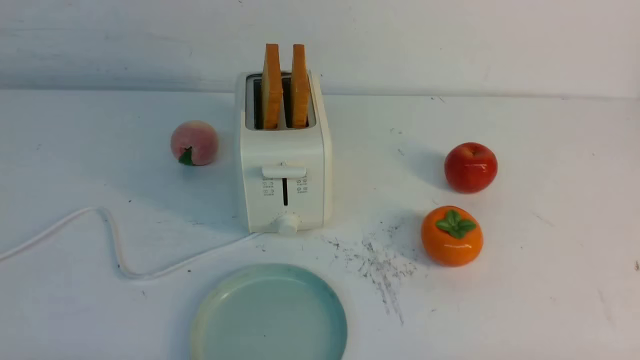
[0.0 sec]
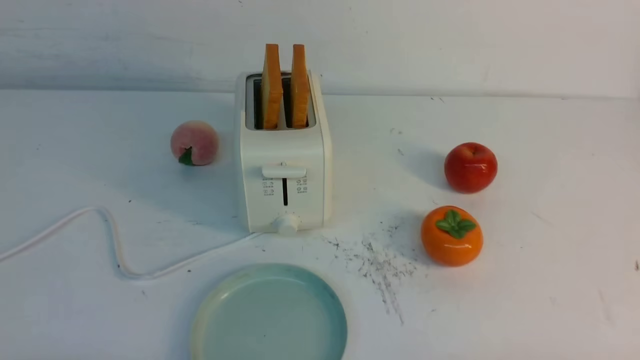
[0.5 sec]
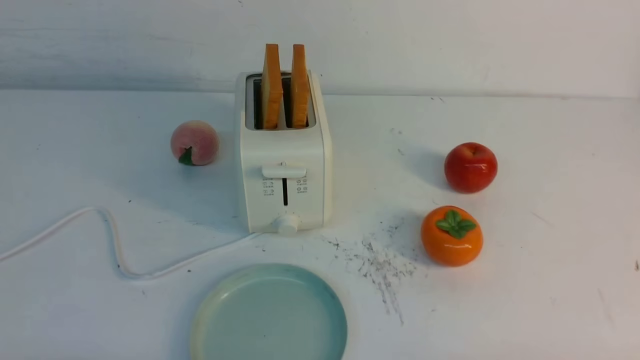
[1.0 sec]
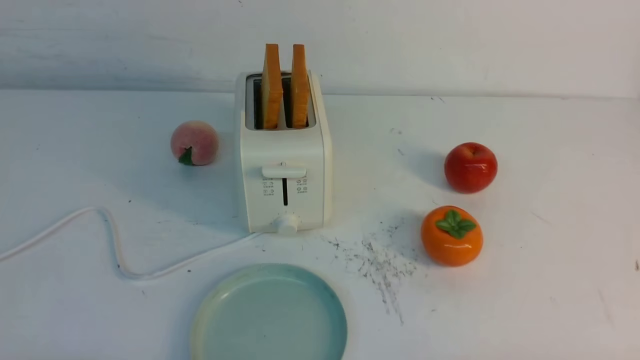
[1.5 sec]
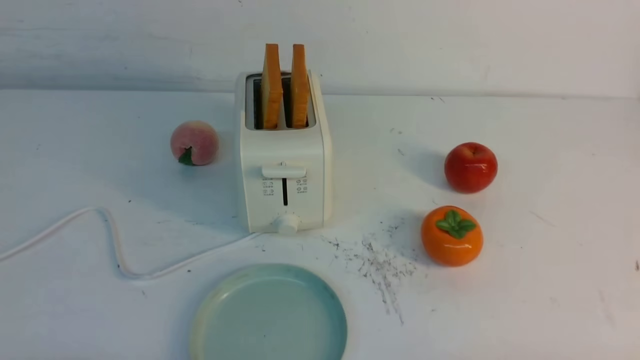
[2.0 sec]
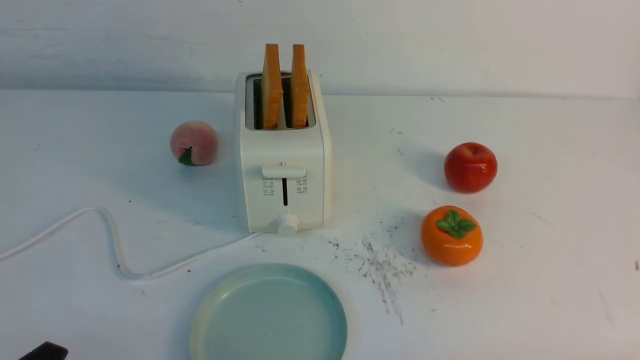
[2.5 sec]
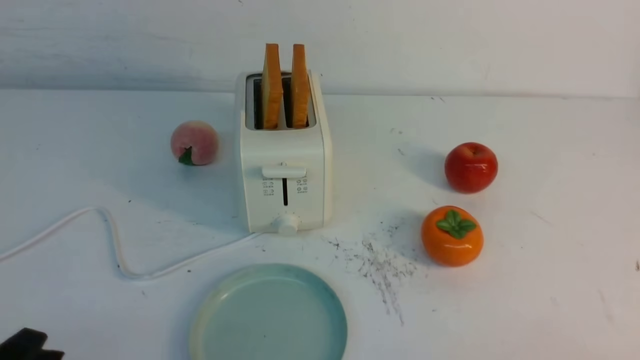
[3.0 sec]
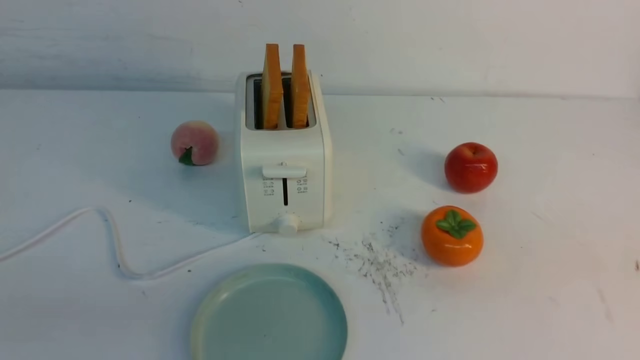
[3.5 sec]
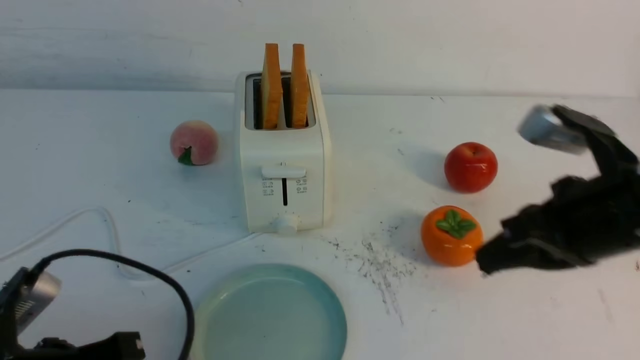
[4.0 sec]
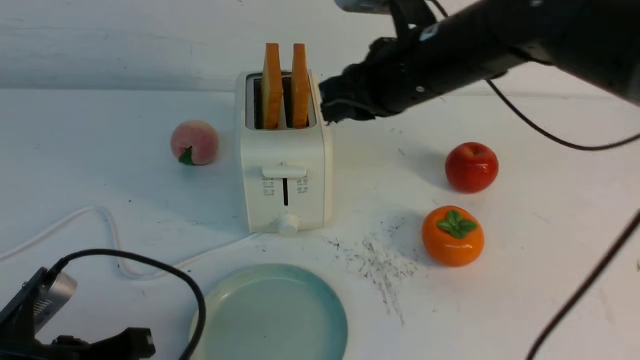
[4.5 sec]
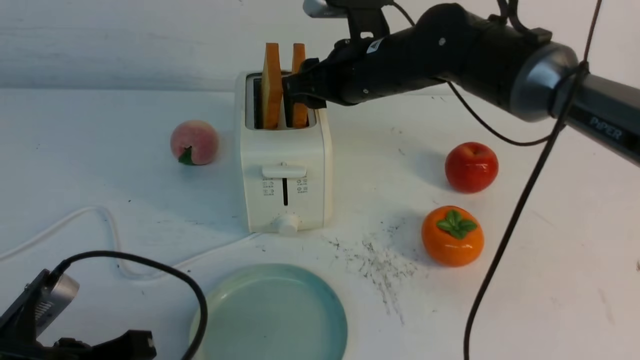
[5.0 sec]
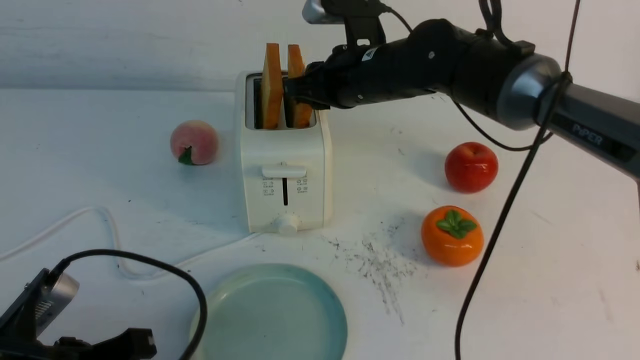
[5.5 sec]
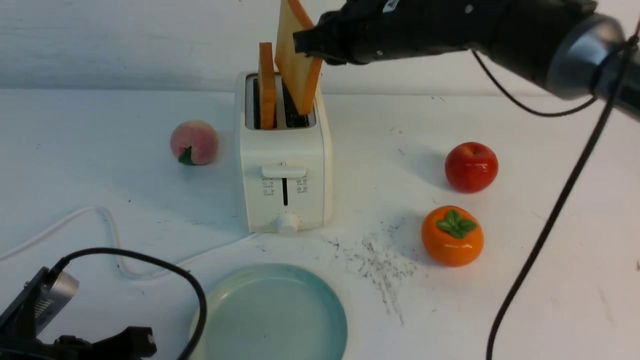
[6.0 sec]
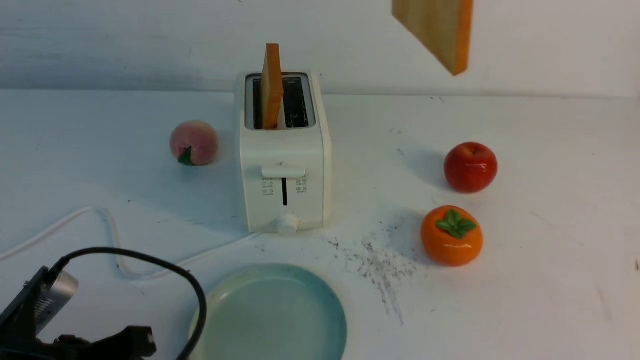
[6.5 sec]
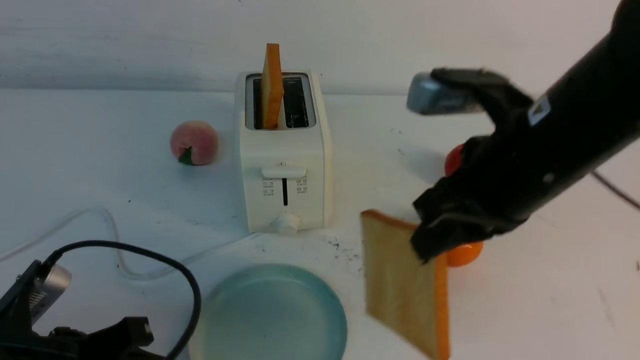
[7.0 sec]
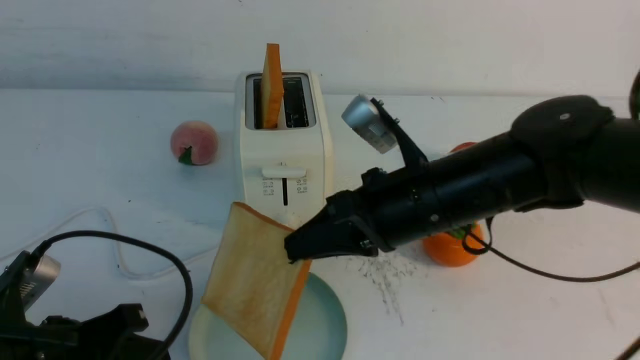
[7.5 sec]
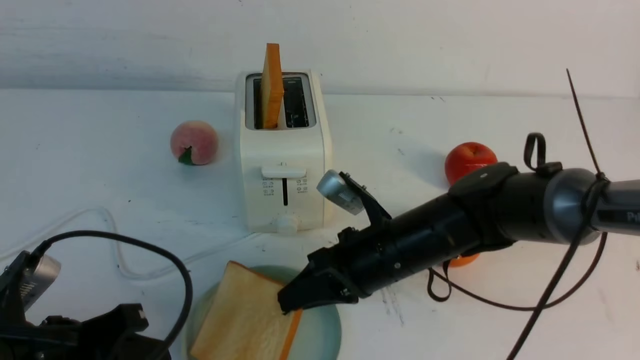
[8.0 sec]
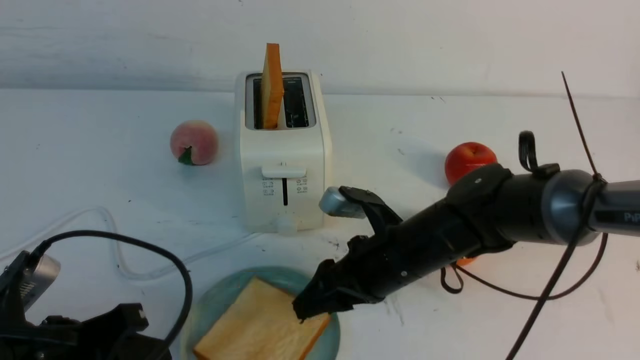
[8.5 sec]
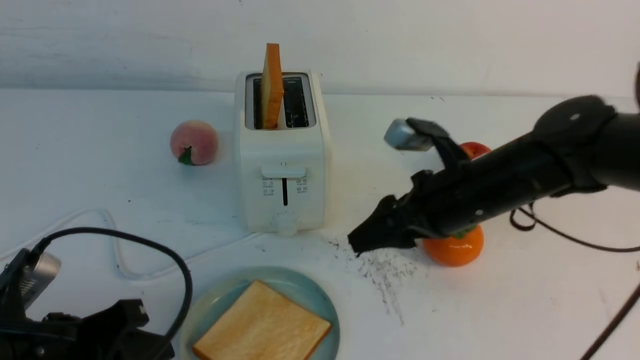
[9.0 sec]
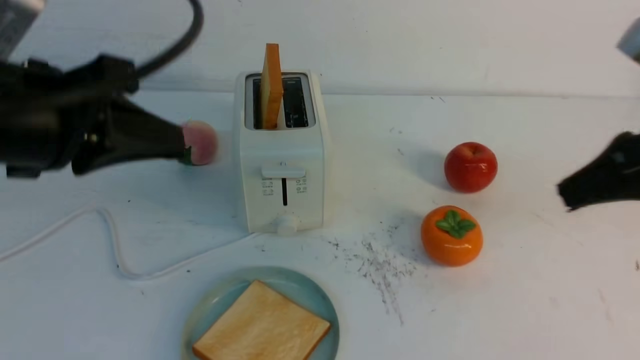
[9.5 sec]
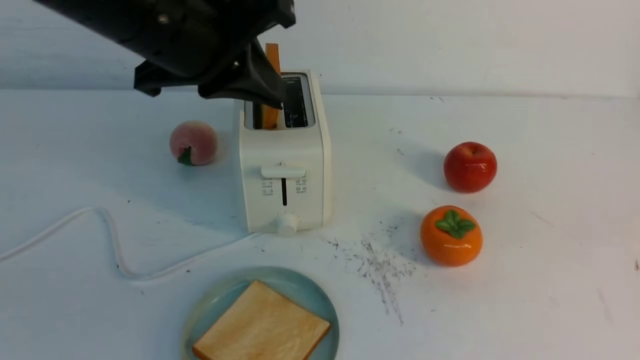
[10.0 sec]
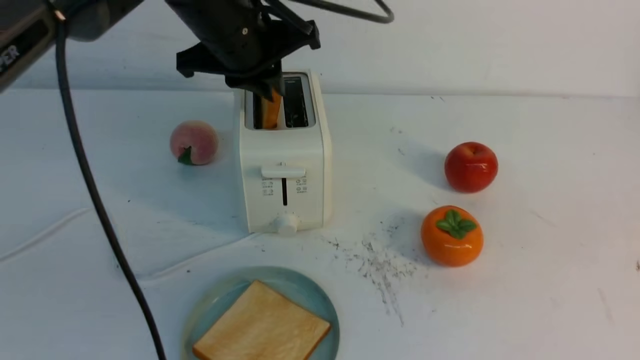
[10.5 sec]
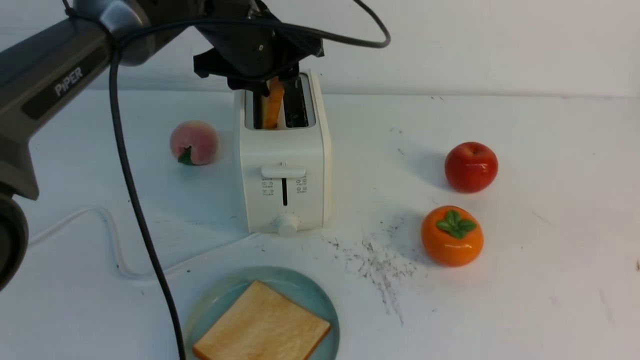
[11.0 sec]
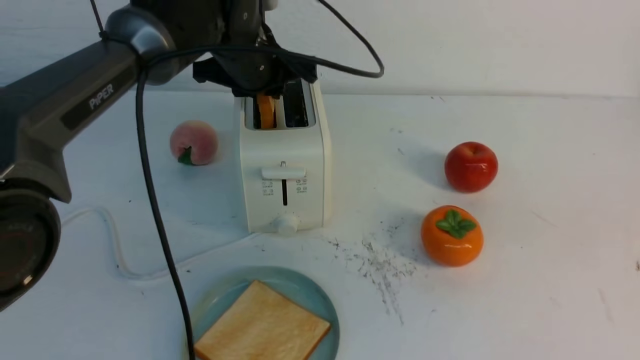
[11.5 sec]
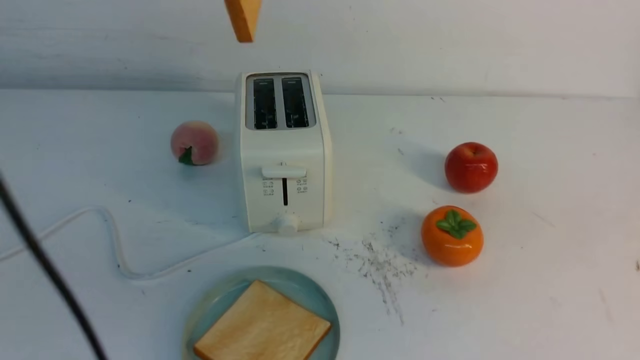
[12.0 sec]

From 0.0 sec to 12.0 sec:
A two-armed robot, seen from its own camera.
Task of the whole recording: take toasted bread from bread machine on white table place on plate.
Step, from 0.0 sec to 5.5 sec: use the right arm to take out a slice of bread.
Step, from 6.5 sec to 8.5 sec: use the right arm to put a slice of bread into the plate.
Step, from 9.0 sec to 11.5 sec: use the left arm to take out a slice of bread.
From 2.0 sec to 4.0 sec: The left gripper moves forward and upward, some 10 cm, and closes up. The right gripper moves forward, upward and to the left, some 25 cm, and closes its fingers.
From 4.0 sec to 6.0 sec: The right gripper travels forward and to the left by approximately 20 cm, and opens and closes again.
From 6.0 sec to 8.0 sec: The right gripper shifts roughly 20 cm downward and backward.
From 8.0 sec to 10.0 sec: The left gripper shifts some 25 cm upward, forward and to the right. The right gripper shifts roughly 40 cm upward, to the right and backward, and opens, then closes once more.
From 10.0 sec to 12.0 sec: The right gripper shifts by about 5 cm; the left gripper is displaced upward by some 5 cm, and opens and closes again.

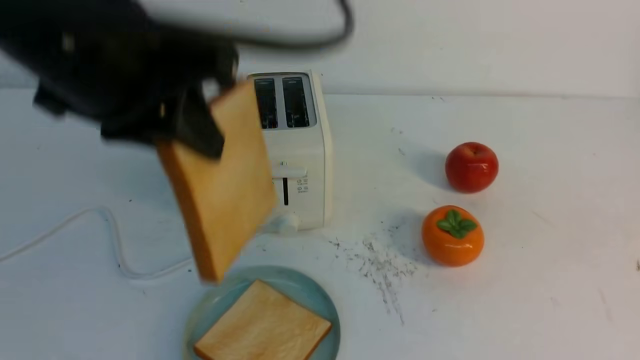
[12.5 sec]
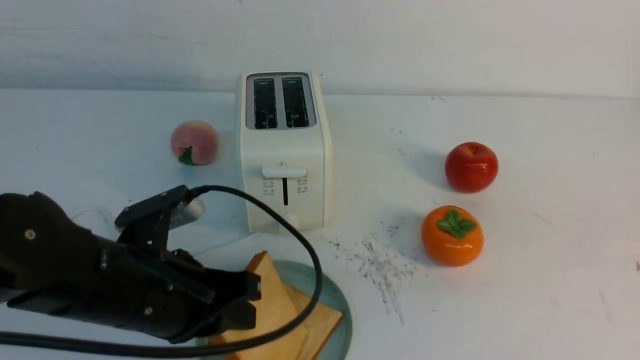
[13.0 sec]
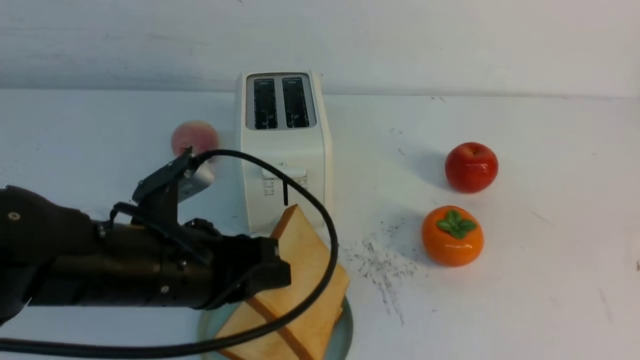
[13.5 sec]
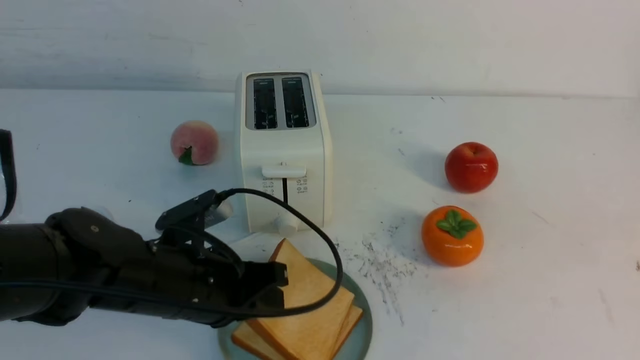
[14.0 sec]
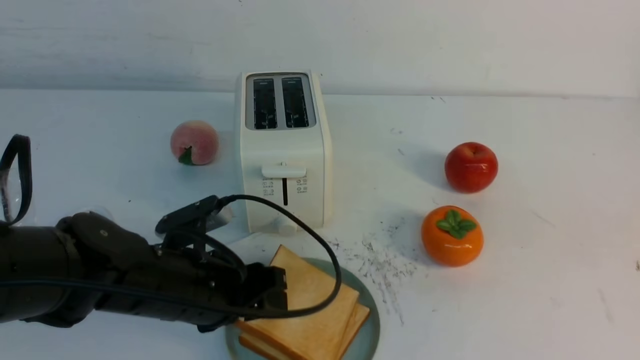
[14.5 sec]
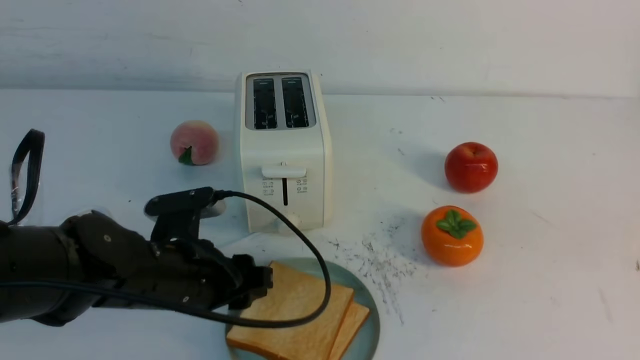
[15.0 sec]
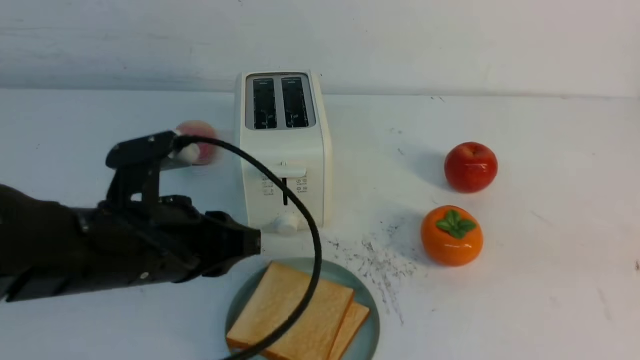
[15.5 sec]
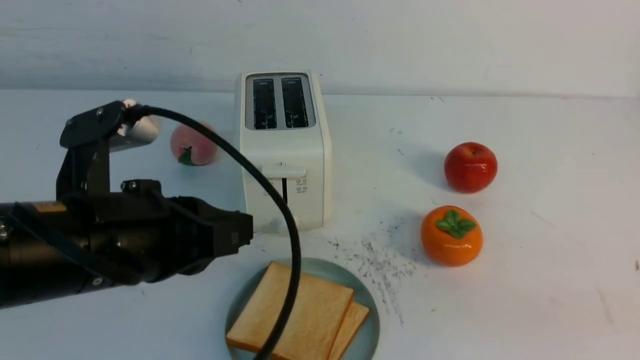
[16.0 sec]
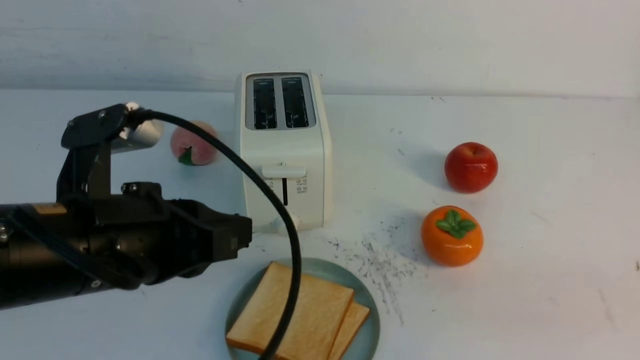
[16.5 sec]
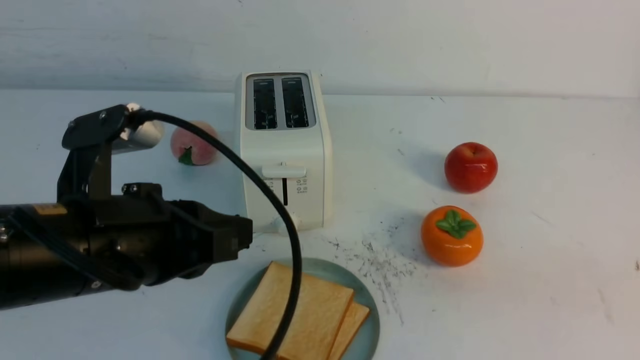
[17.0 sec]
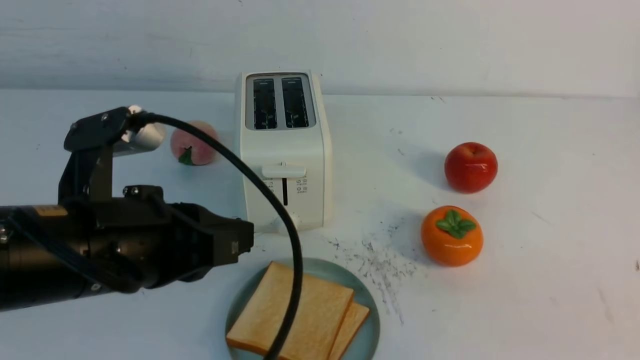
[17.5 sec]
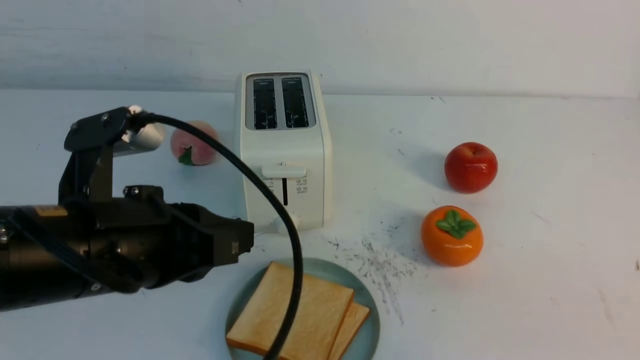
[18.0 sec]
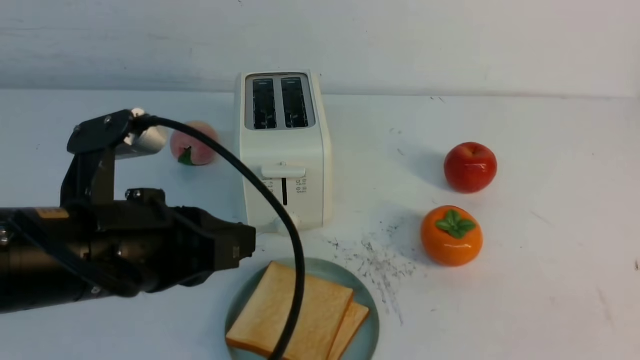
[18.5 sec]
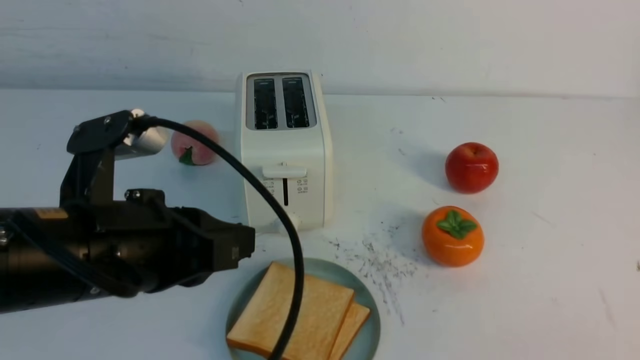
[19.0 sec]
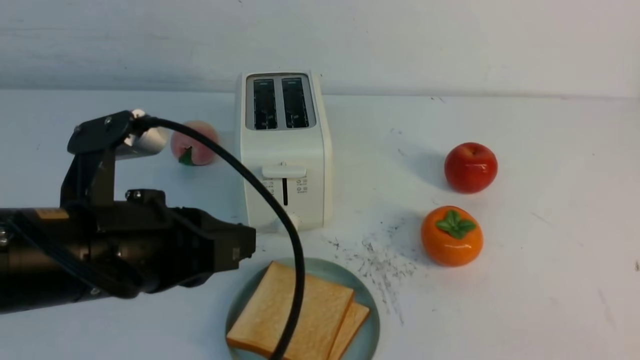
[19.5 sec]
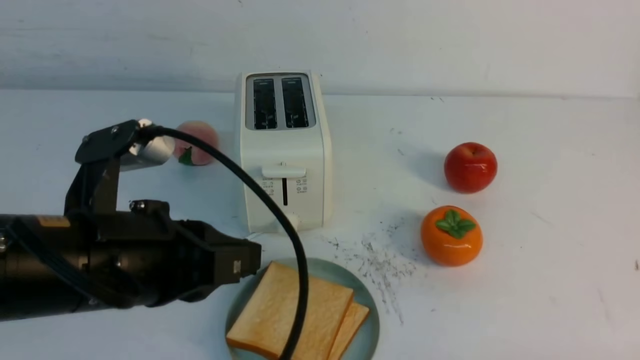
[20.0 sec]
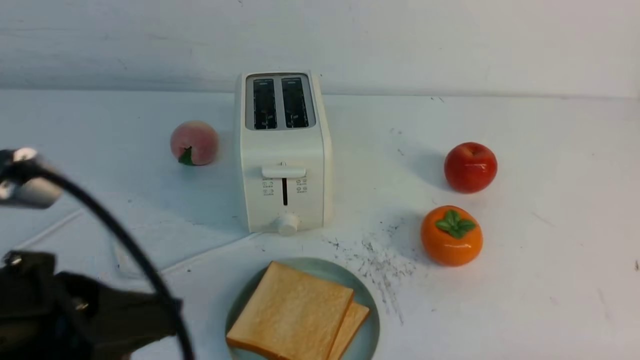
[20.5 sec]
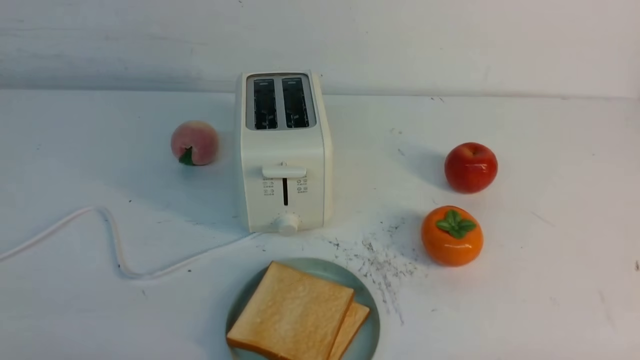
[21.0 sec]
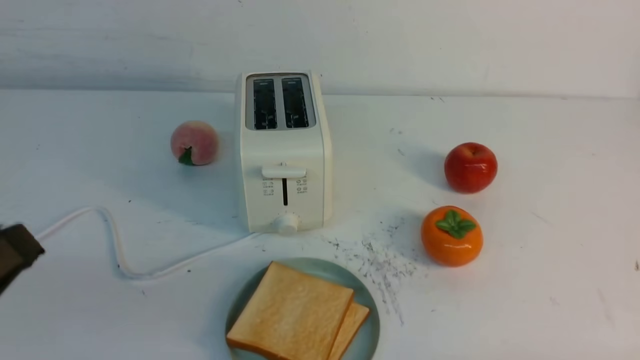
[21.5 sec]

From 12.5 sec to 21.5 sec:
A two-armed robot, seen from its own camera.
Task of the whole recording: take toasted bread from bread machine on white table place on plate.
Step, from 12.5 sec to 15.0 sec: use the left arm to put a slice of bread into the empty plate.
From 12.5 sec to 14.5 sec: The left gripper moves downward, about 20 cm, and opens up.
From 14.5 sec to 17.0 sec: The right gripper shifts approximately 10 cm downward and backward, while the left gripper shifts about 15 cm upward and backward, and closes its fingers.
From 17.0 sec to 19.5 sec: The right gripper moves downward, about 5 cm.
From 19.5 sec to 21.5 sec: The left gripper heads backward and to the left, covering some 15 cm; the right gripper is displaced downward by roughly 10 cm.
